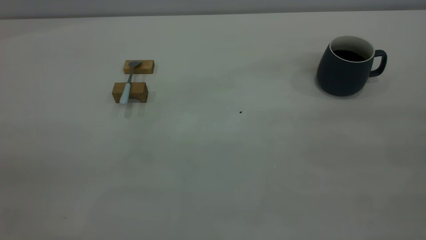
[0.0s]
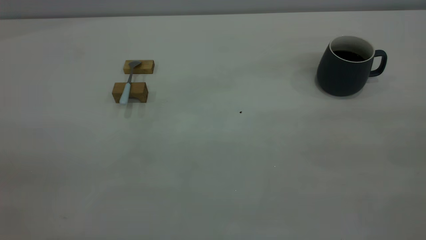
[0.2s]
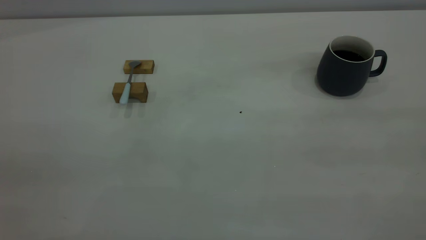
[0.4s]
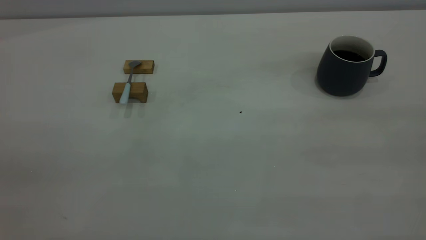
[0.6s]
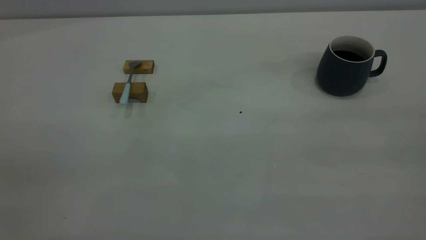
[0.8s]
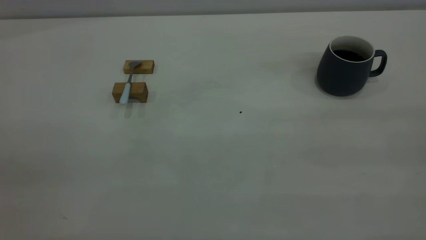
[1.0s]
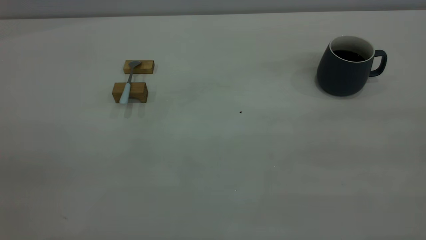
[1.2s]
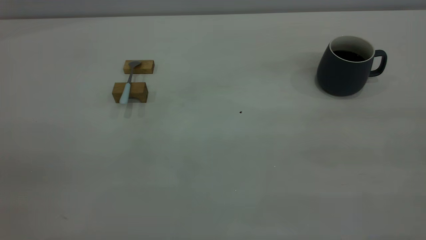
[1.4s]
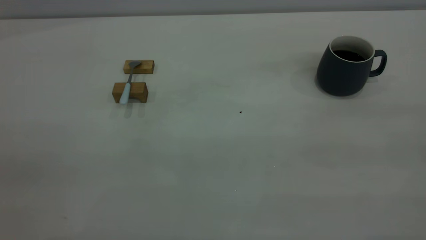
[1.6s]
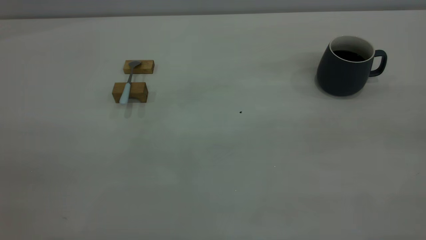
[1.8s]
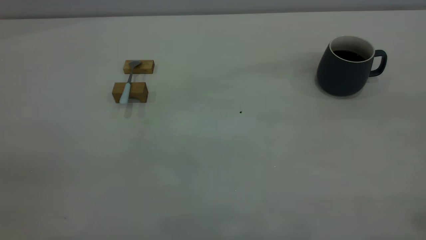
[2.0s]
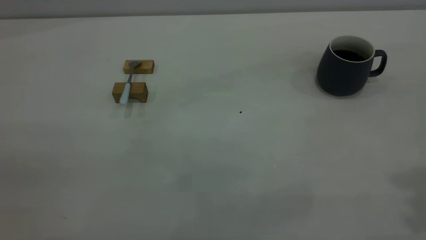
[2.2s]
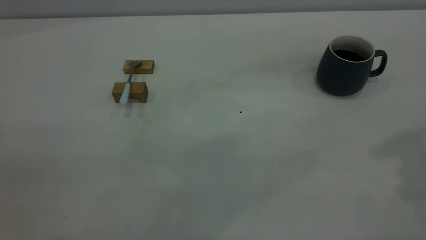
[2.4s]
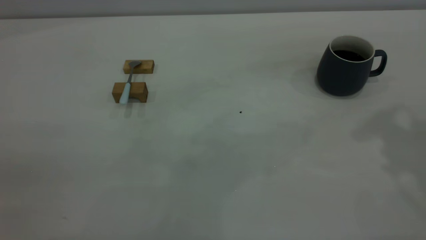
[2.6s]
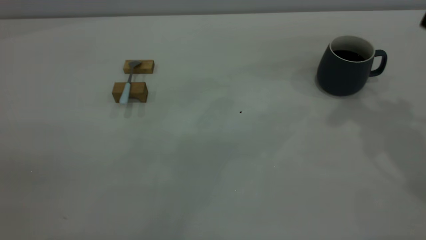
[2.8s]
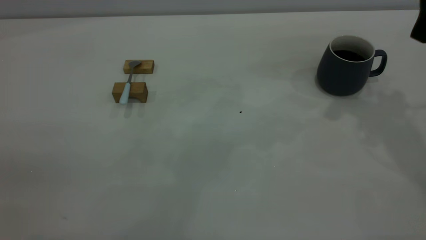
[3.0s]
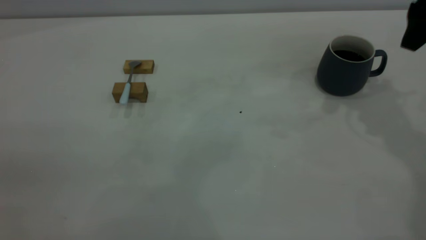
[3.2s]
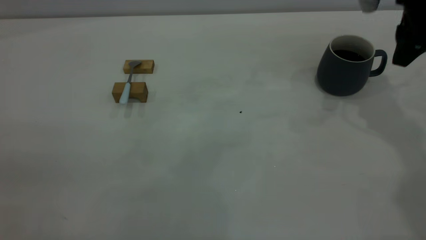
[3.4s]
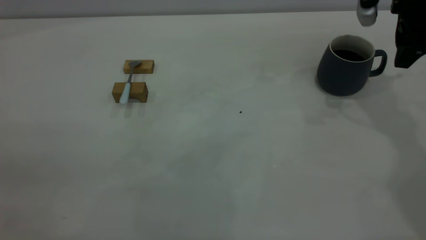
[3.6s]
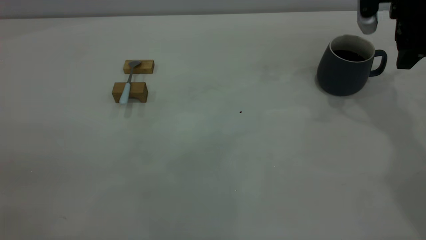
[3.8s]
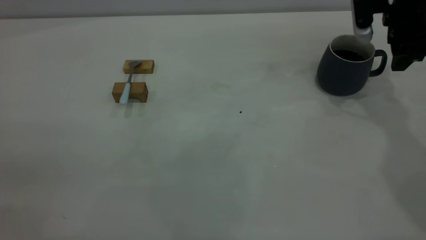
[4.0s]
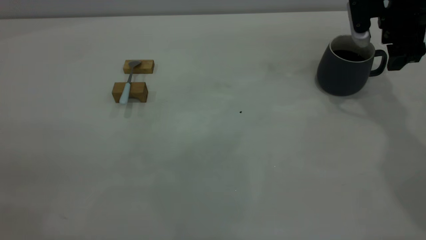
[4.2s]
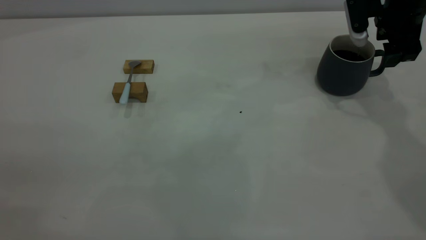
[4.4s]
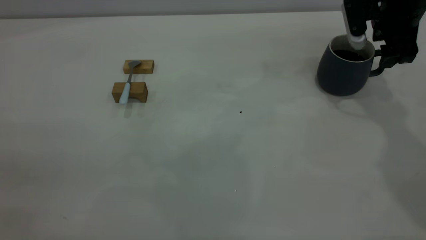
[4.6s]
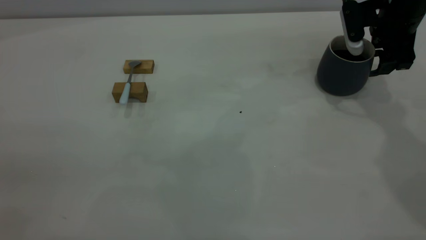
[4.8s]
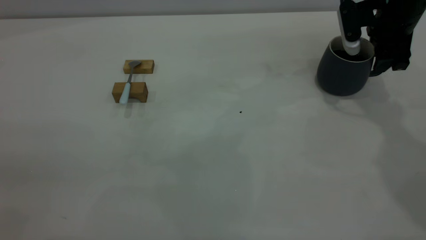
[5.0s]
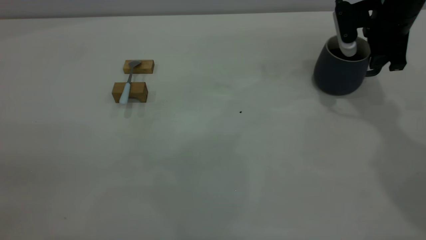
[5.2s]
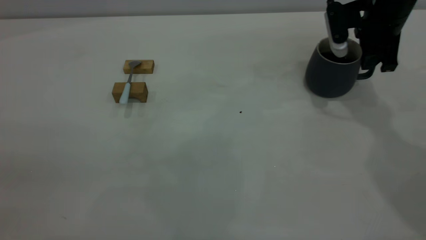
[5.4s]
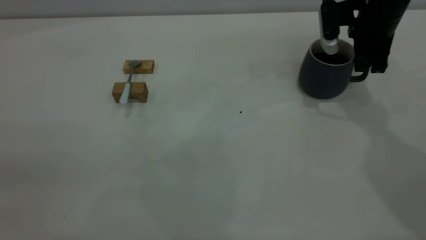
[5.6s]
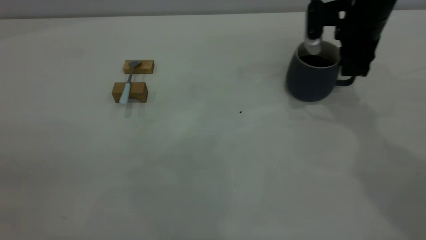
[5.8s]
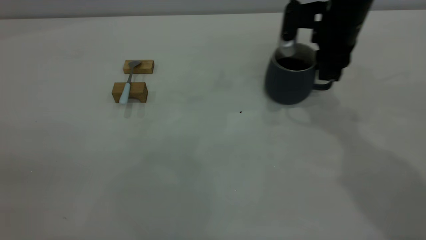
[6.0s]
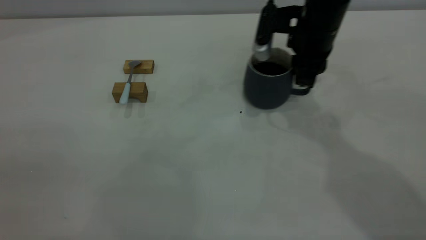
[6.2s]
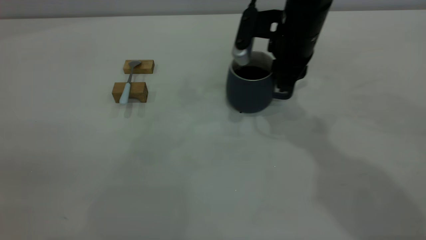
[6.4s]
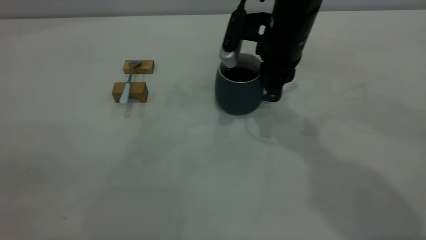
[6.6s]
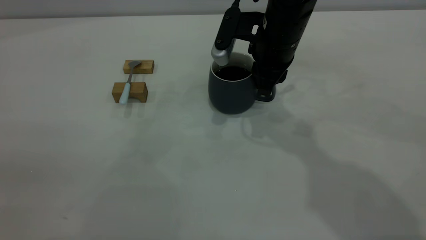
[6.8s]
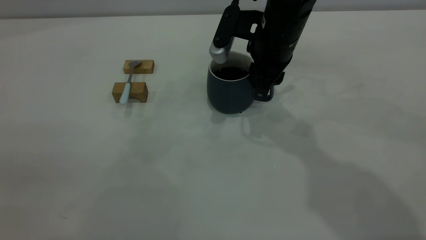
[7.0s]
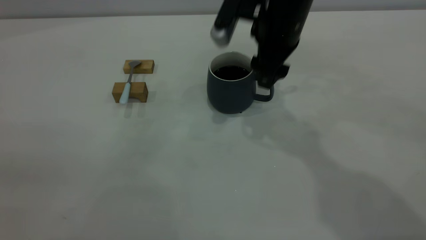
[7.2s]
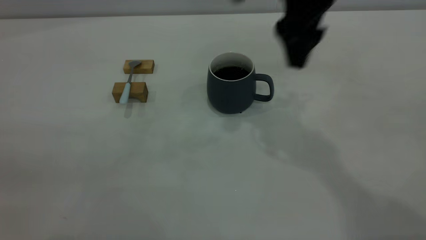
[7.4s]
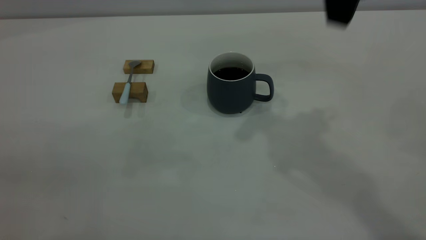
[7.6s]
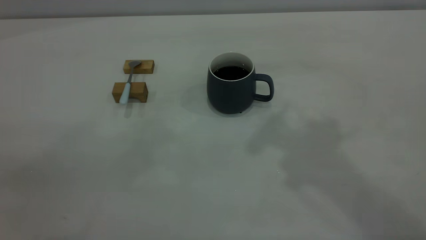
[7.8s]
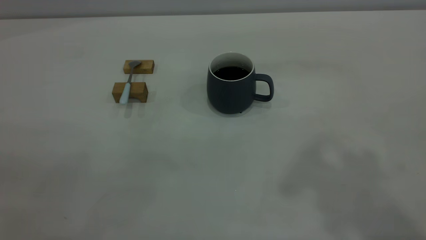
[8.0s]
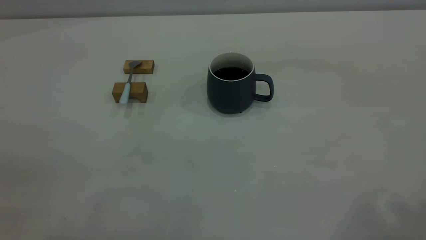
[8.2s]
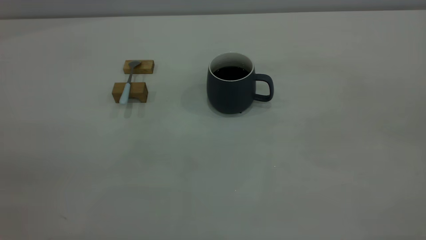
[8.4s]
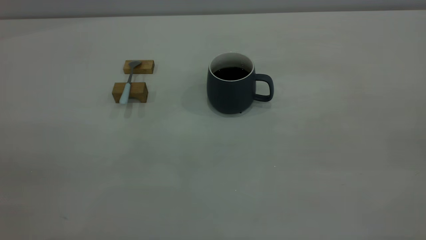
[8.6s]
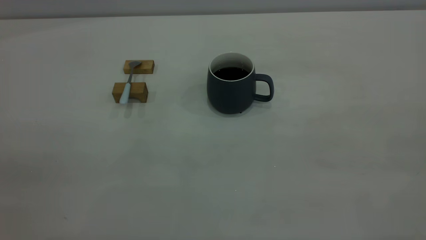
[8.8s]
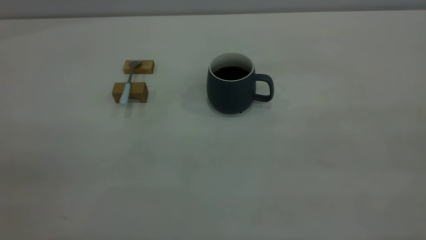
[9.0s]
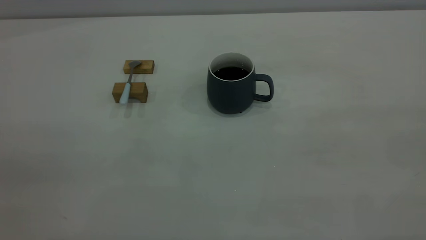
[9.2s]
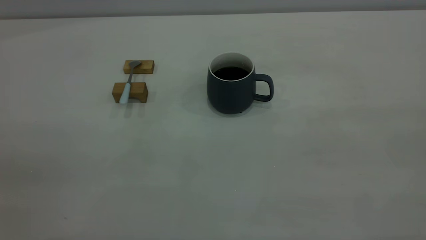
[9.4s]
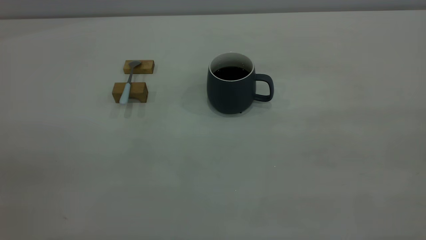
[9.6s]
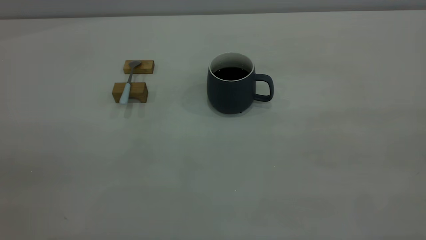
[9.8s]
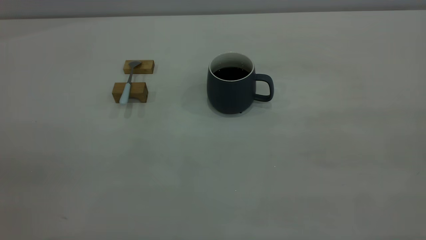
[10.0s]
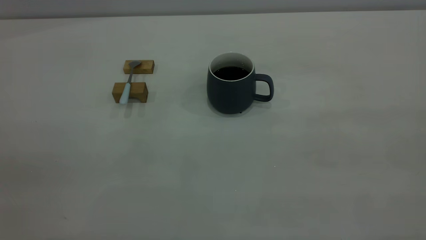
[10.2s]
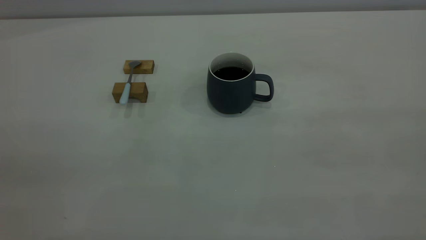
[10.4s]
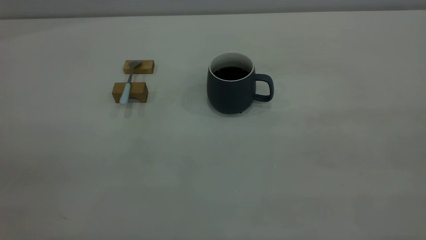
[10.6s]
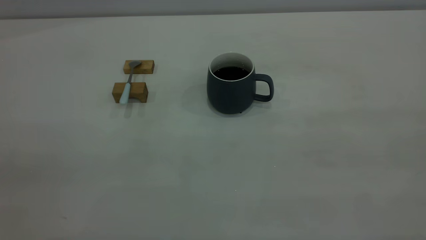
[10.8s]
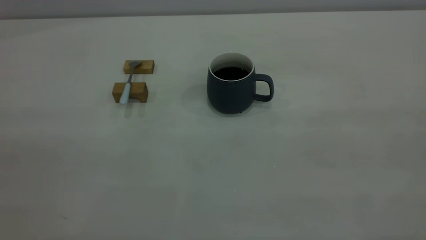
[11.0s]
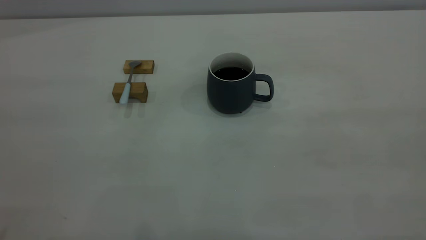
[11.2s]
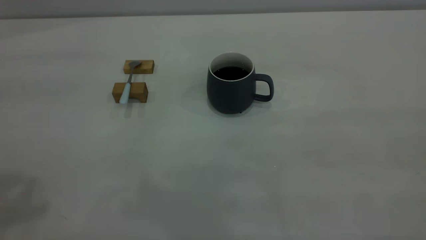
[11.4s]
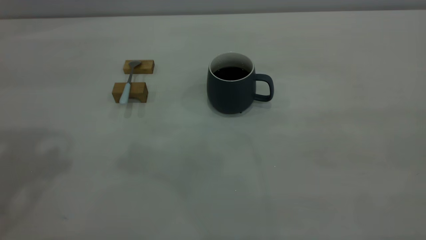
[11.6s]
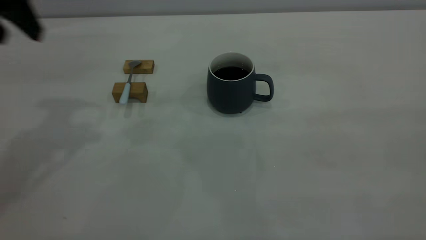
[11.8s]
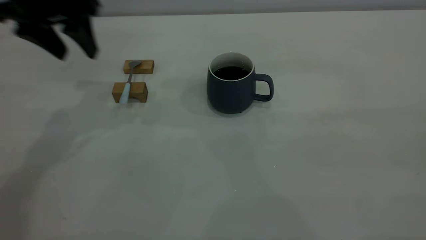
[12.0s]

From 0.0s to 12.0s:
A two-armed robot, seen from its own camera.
Step, from 0.0s to 7.4s: Move the cup with coffee to the center of view.
From 3.0s to 4.4s: The right gripper heads downward and forward, covering about 15 cm.
From 4.4s to 6.0s: The right gripper goes roughly 10 cm to the left, and closes its fingers.
From 6.0s to 7.6s: The right gripper heads upward and backward, covering some 25 cm, and opens.
From 7.6s to 9.0s: The right gripper moves backward and to the right, roughly 35 cm.
From 10.4s to 12.0s: The left gripper moves forward, some 40 cm.

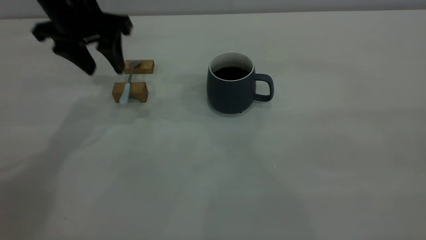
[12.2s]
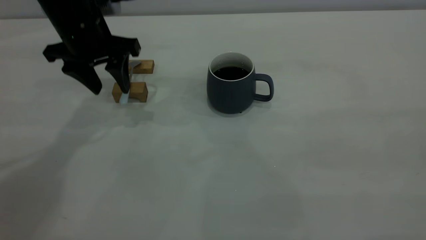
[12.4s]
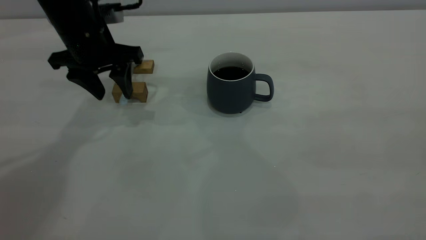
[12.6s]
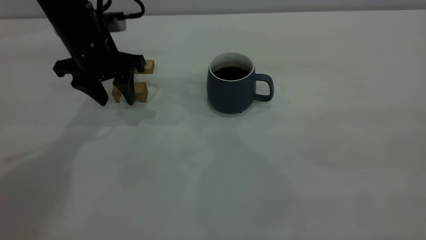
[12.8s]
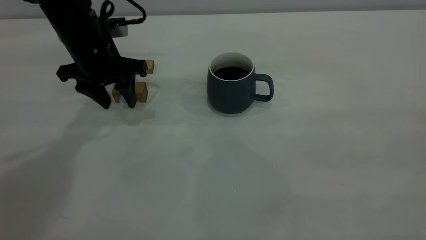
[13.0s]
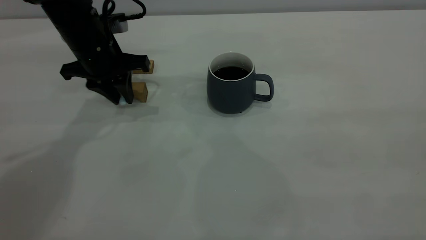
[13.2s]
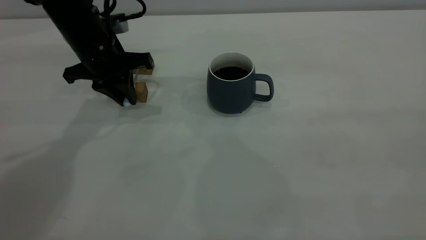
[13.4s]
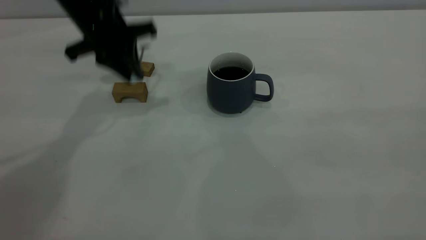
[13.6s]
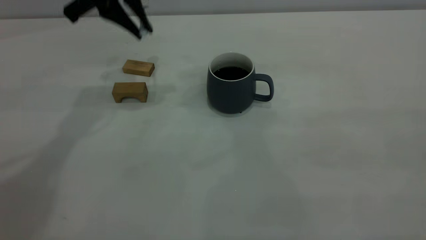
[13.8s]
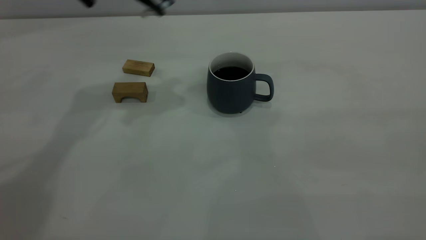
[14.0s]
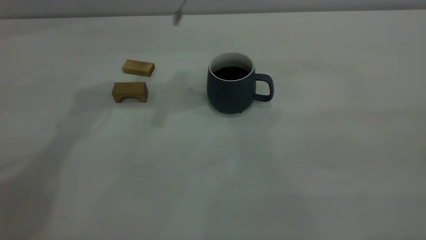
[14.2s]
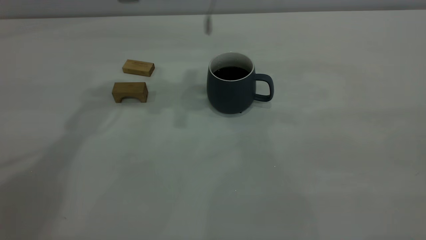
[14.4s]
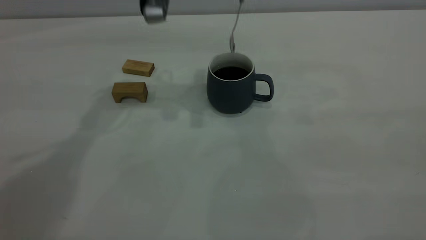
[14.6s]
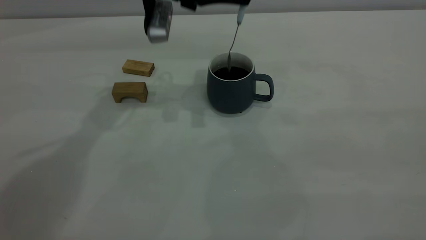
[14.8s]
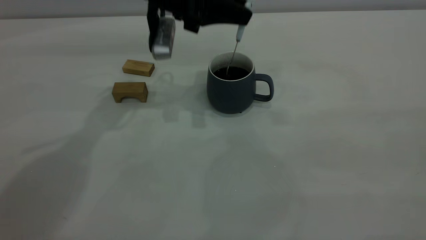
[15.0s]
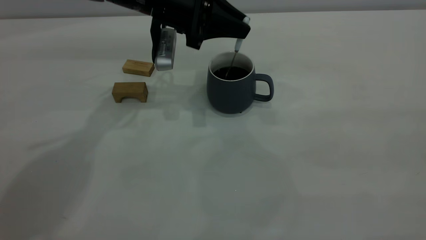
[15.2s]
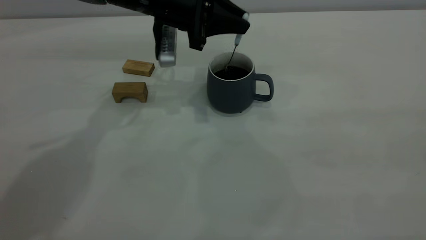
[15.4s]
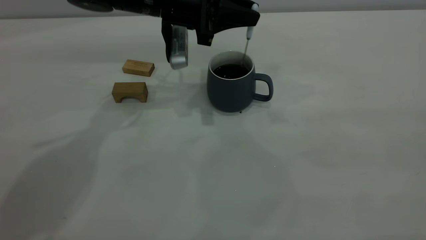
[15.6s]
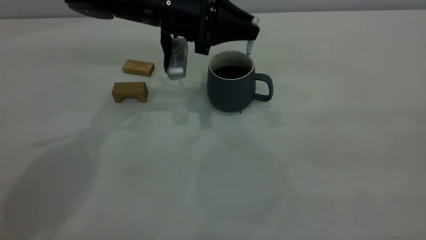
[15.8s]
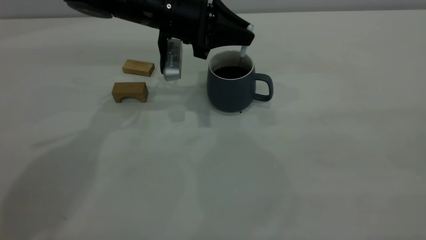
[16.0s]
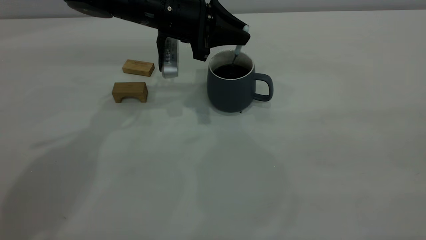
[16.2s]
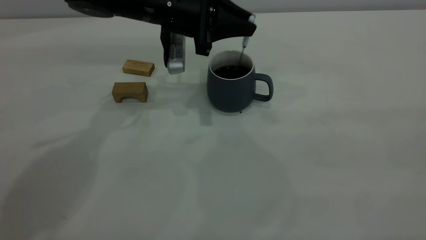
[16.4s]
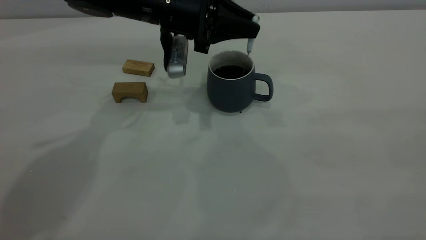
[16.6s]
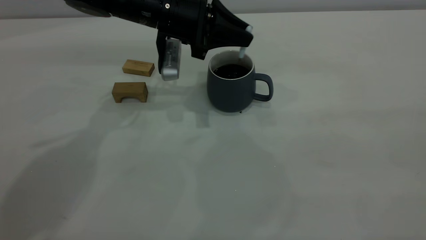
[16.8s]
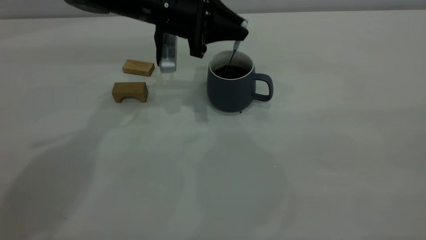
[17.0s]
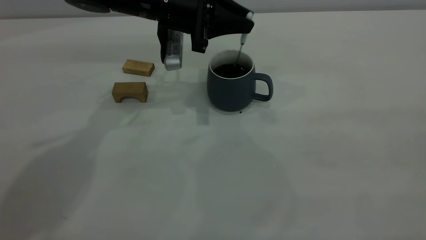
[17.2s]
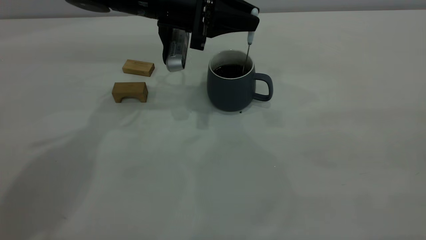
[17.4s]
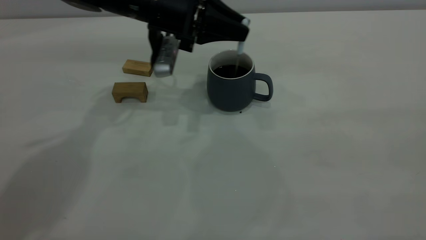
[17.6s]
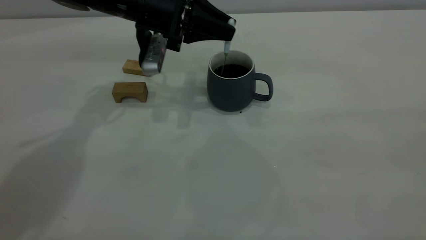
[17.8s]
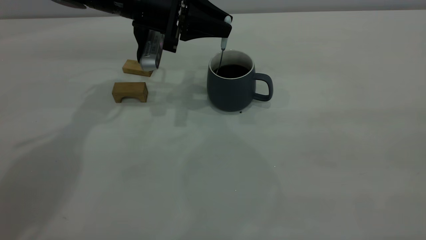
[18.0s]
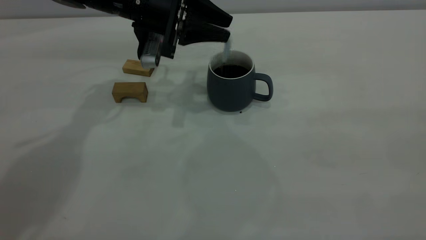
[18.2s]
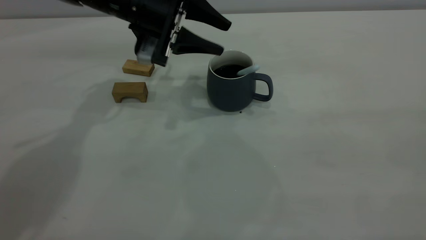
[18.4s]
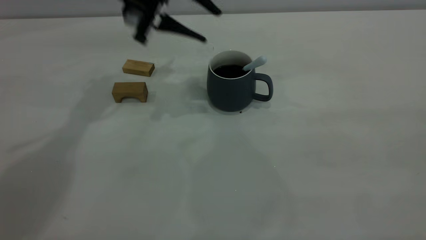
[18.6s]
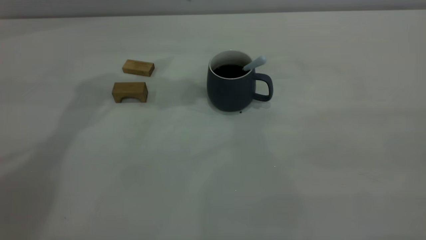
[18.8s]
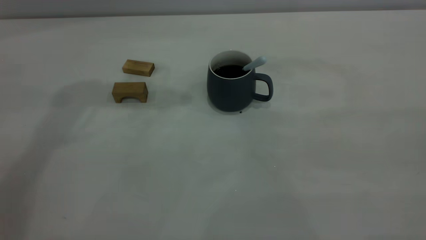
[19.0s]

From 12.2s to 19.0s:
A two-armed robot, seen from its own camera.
Step, from 13.8s to 18.4s: Stir the coffee in the cup.
From 12.2s to 13.6s: The left gripper closes its fingers.
From 13.6s to 15.0s: The left gripper moves to the right, roughly 10 cm, and travels upward and back again, some 10 cm each way.
From 15.0s to 17.6s: The grippers stay close to where they were, moving slightly.
From 17.6s to 19.0s: The left gripper travels upward by some 20 cm, and opens up.
